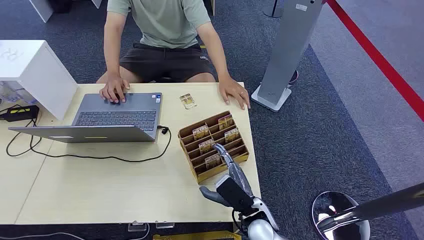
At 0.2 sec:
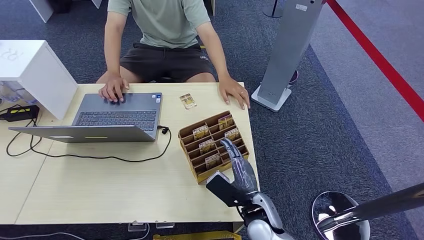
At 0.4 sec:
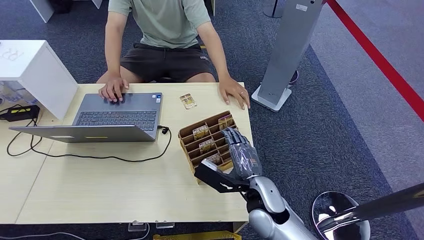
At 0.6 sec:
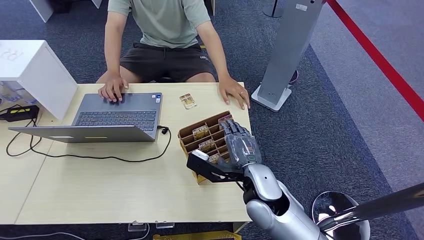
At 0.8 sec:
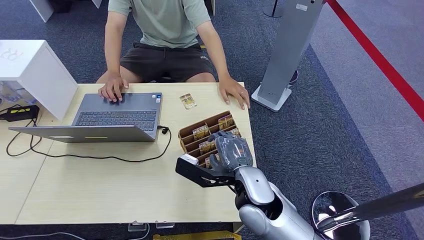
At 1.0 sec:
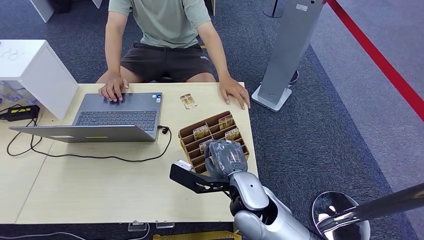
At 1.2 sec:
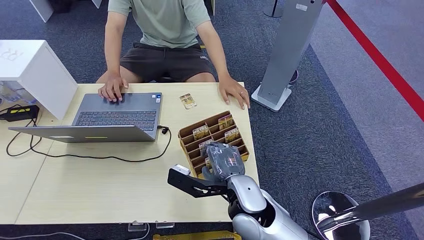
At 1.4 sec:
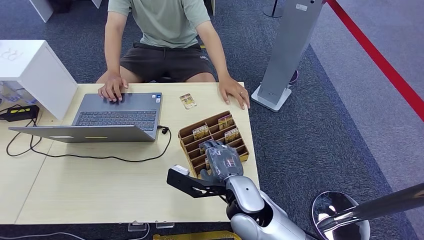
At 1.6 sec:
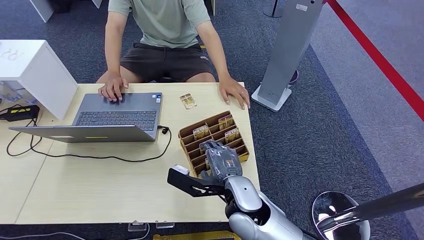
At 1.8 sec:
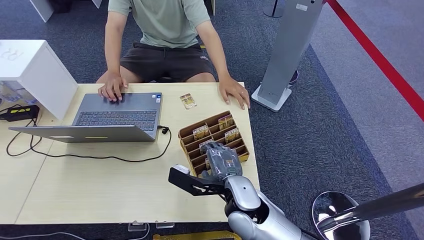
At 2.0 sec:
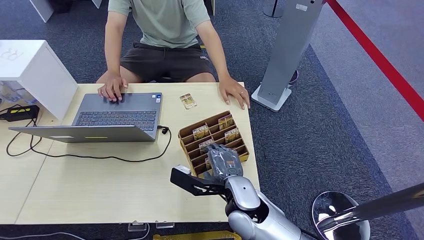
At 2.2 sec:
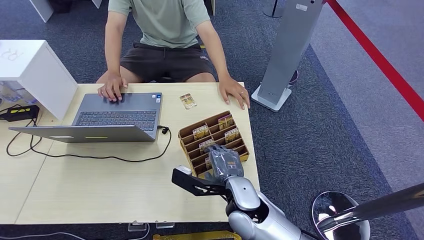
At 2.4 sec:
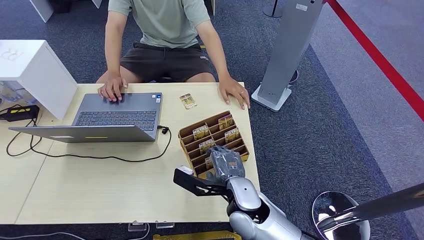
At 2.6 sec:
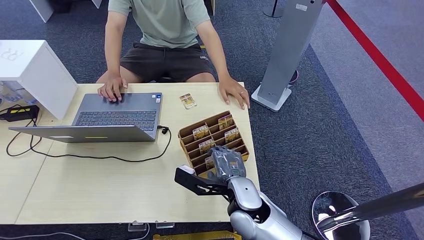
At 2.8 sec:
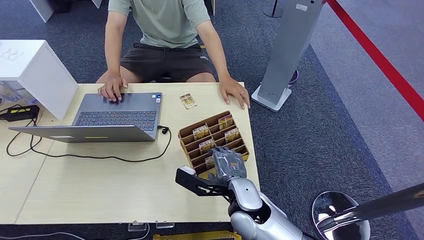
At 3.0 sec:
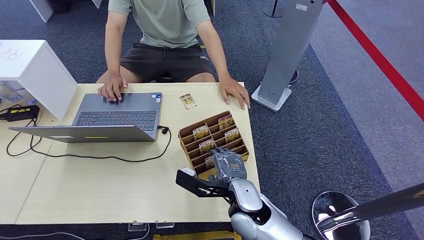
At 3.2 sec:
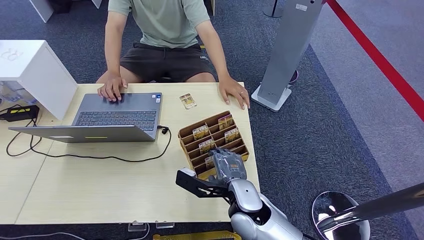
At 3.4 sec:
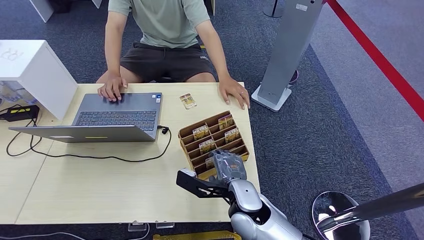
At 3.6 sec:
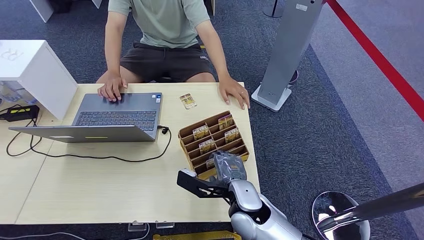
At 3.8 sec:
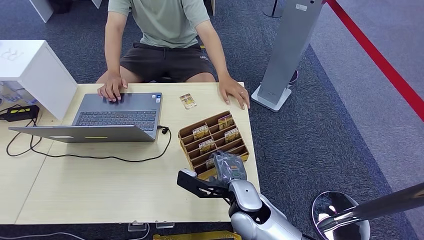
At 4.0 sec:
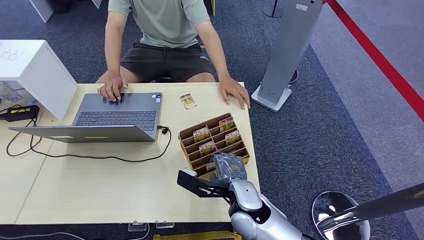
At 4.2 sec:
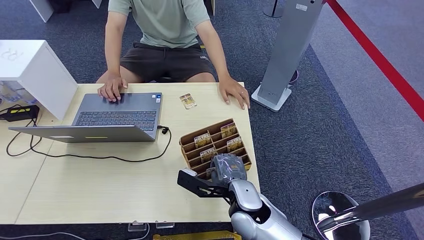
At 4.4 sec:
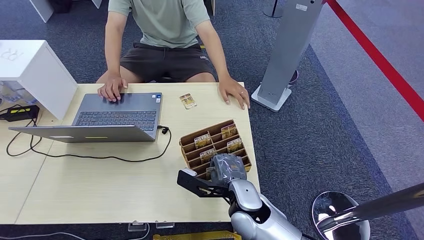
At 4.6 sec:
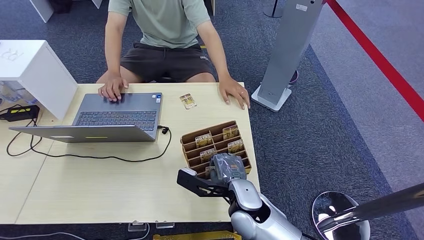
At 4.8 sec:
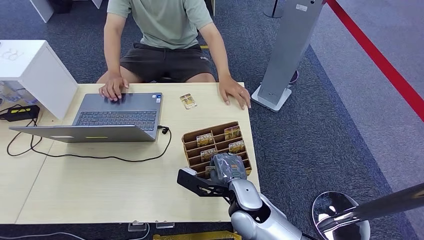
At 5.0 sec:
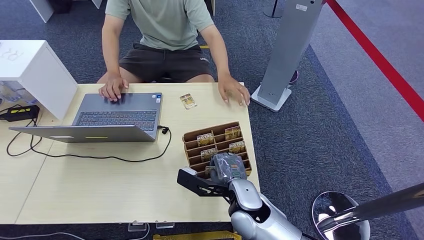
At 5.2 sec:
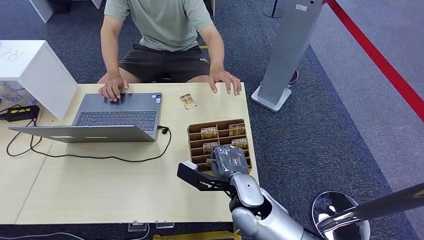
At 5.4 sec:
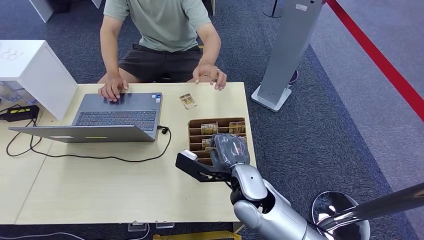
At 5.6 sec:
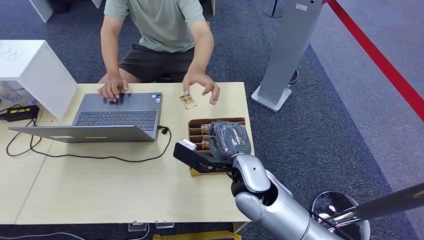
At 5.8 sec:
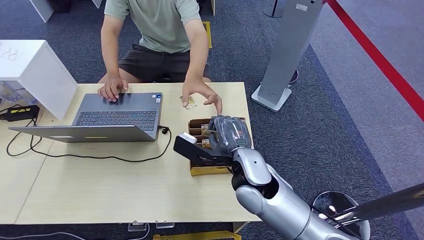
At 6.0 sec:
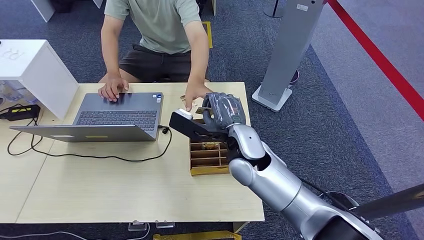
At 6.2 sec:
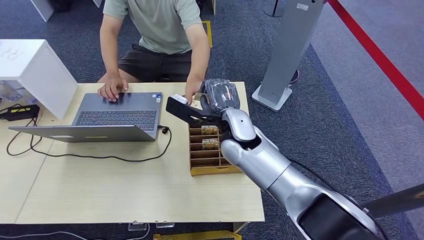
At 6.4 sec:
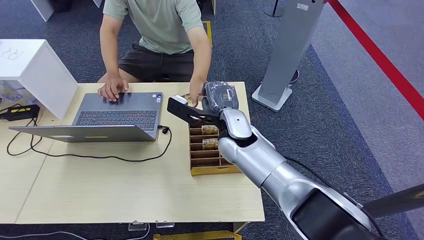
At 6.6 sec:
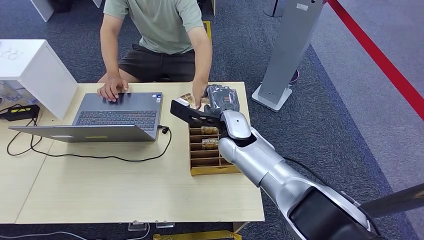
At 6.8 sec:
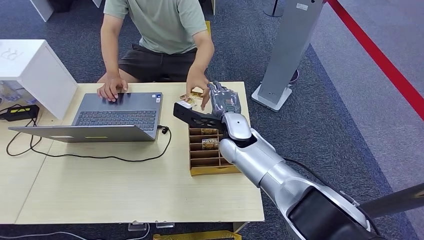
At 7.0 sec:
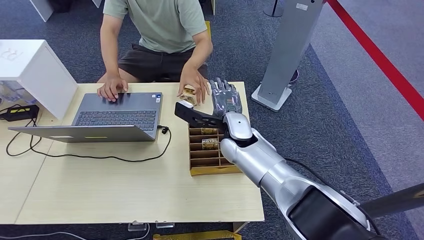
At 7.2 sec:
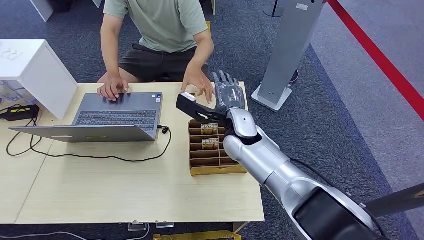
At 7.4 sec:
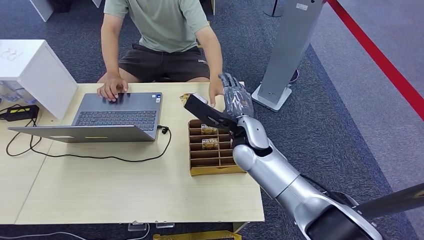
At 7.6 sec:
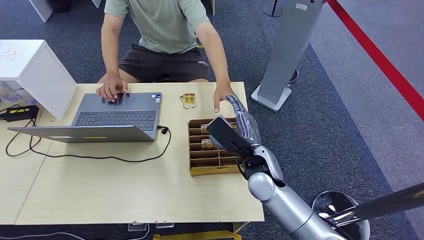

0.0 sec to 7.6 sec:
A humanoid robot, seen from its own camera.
Step, 0.0 sec to 6.0 sec: Pick up the key card from the card box.
Step, 6.4 sec to 7.6 sec: Hand the key card to the target.
1.6 sec to 3.0 sec: The hands make only small movements.
3.0 sec to 4.6 sec: Both hands stay put.
4.6 sec to 6.0 sec: The right hand heads upward and forward, covering roughly 15 cm.
6.0 sec to 7.6 sec: The right hand moves downward and to the right, some 10 cm, and goes forward and returns, about 5 cm each way.

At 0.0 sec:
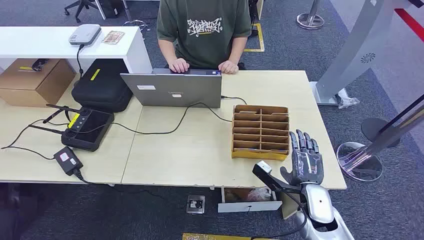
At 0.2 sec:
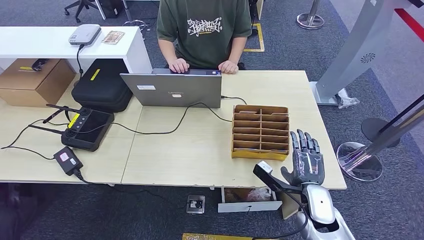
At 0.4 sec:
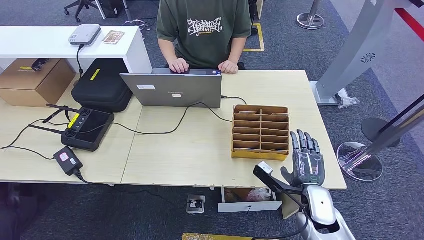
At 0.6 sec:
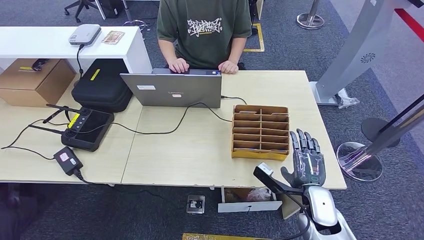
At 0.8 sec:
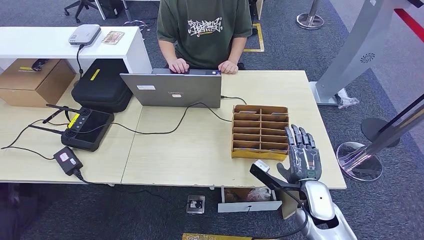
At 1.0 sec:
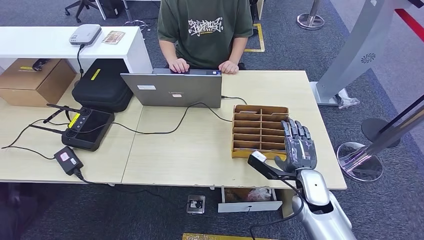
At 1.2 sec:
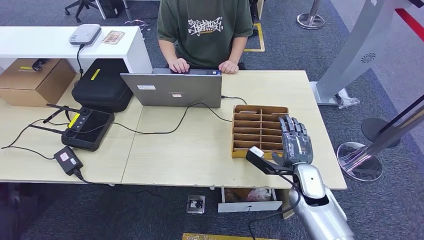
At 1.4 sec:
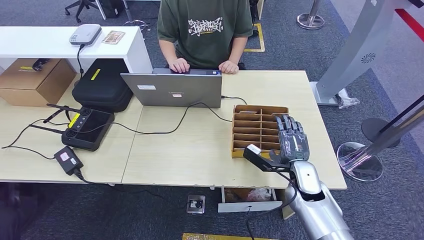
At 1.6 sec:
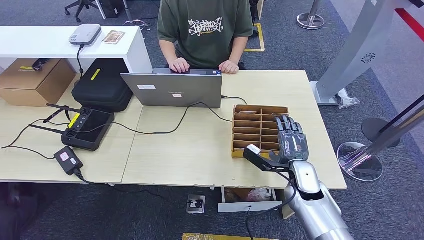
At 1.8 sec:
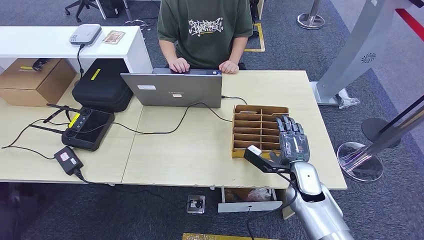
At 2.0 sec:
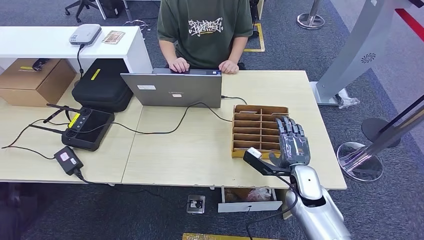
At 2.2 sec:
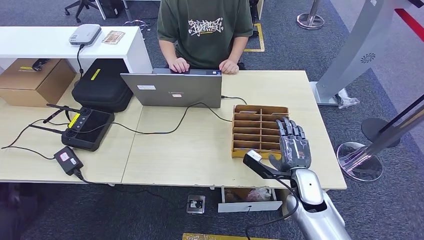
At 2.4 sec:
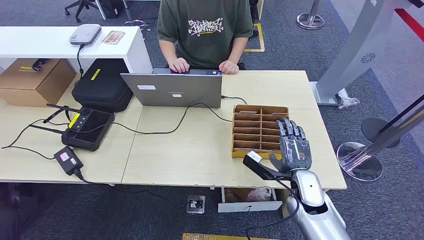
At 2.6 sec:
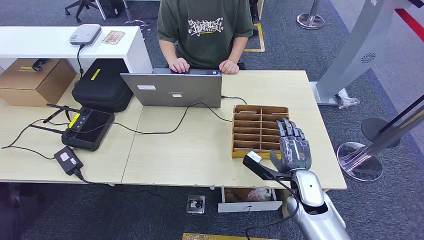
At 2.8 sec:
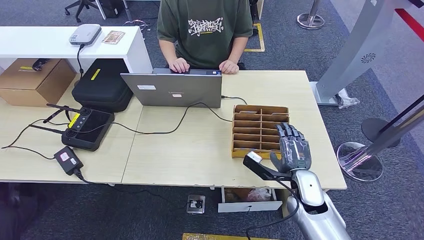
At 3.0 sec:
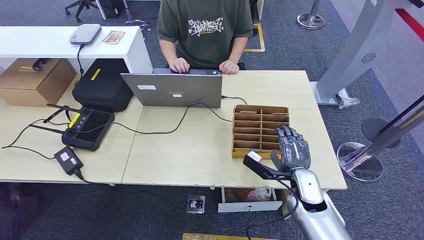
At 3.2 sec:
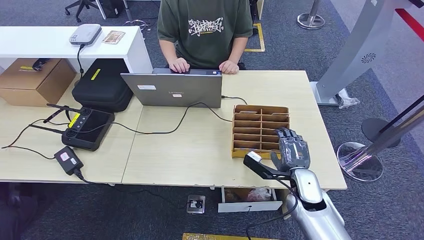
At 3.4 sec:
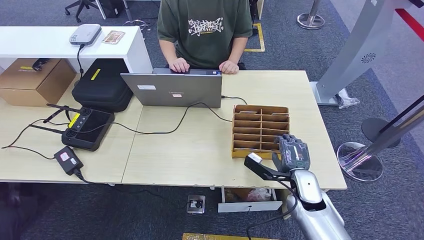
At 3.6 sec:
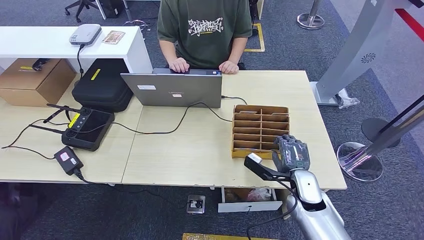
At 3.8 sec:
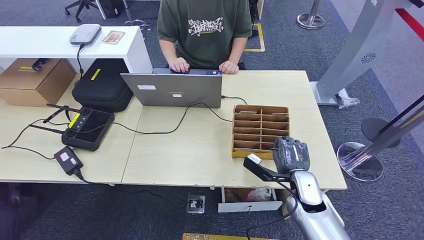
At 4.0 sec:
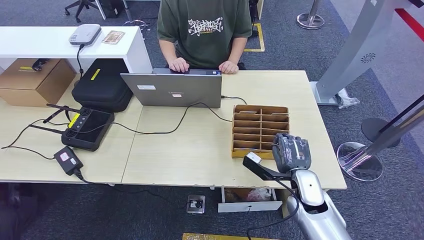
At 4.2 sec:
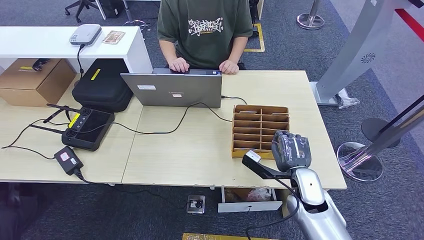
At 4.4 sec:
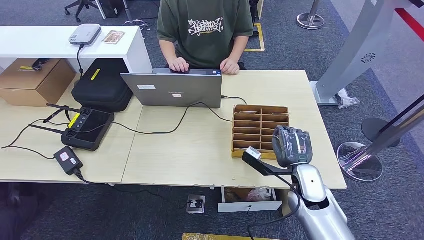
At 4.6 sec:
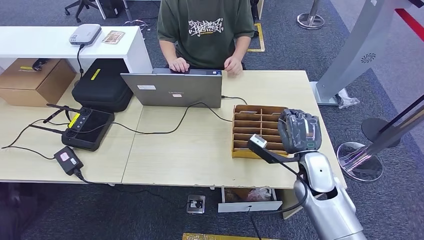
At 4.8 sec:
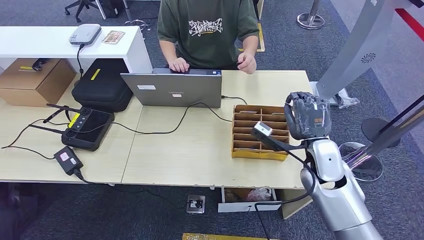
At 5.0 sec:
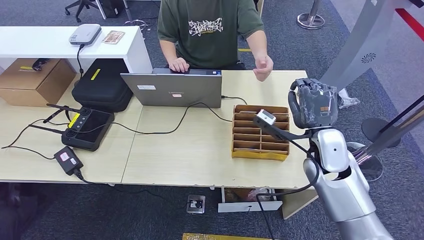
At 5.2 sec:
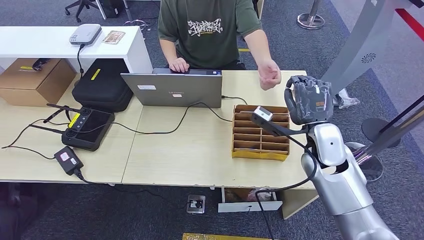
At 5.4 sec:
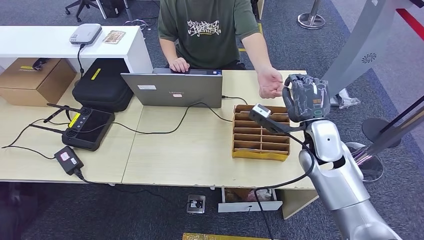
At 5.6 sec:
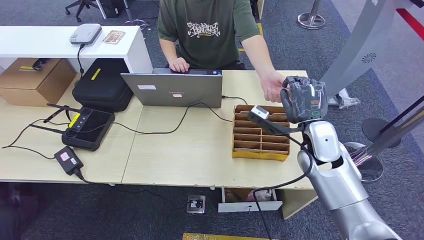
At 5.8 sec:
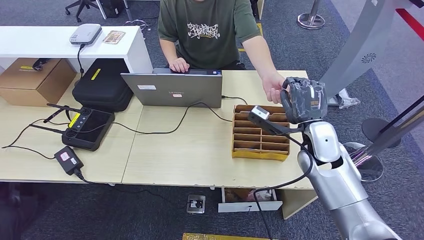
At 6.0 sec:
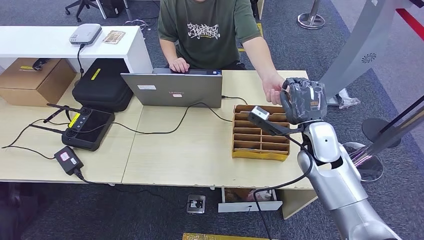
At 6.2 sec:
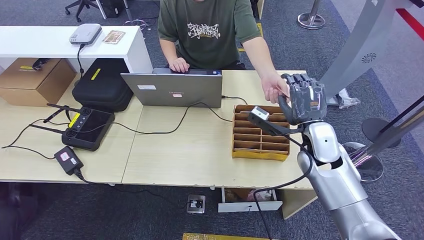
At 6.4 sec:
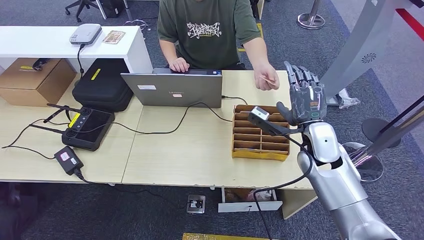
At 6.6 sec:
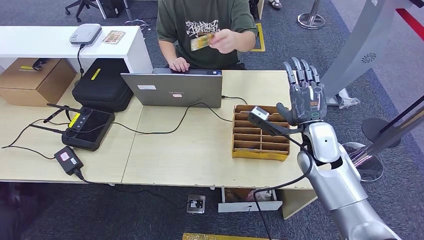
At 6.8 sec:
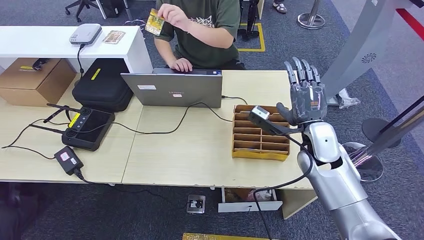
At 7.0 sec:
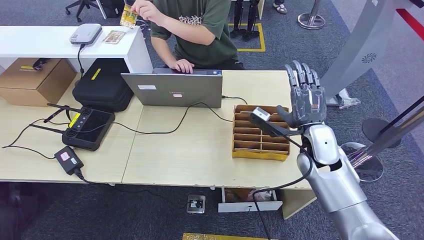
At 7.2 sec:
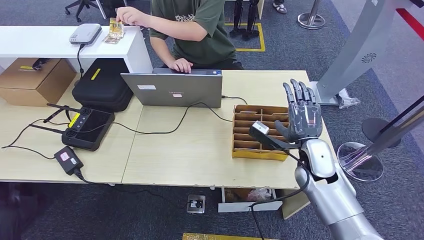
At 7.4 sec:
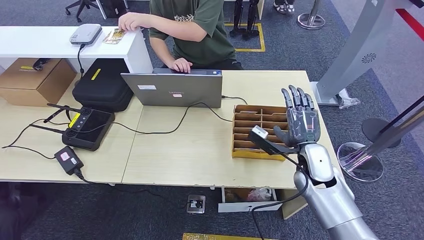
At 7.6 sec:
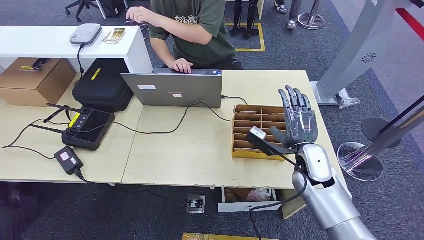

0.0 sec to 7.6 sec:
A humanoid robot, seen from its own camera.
Step, 0.0 sec to 4.6 sec: Pick up the key card from the card box.
Step, 5.0 sec to 7.6 sec: Hand the key card to the target.
1.6 sec to 3.0 sec: The hands move only a little.
3.0 sec to 4.6 sec: The right hand is displaced upward by about 5 cm.
4.6 sec to 6.0 sec: The right hand is displaced upward by some 5 cm.
6.0 sec to 7.6 sec: The right hand shifts roughly 5 cm downward.
